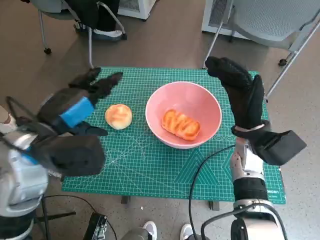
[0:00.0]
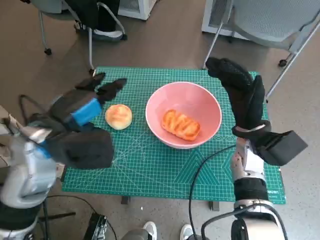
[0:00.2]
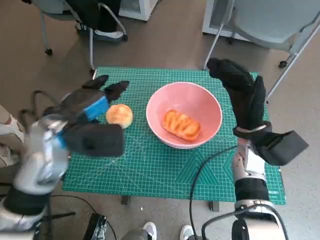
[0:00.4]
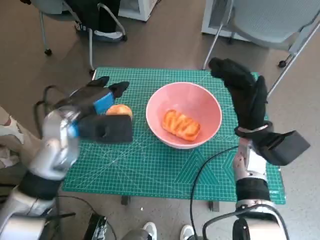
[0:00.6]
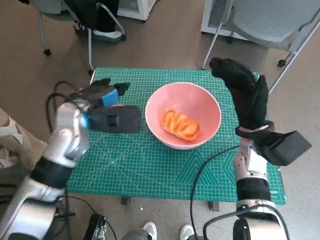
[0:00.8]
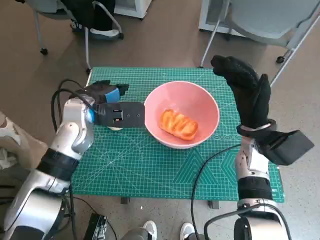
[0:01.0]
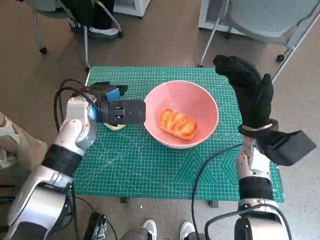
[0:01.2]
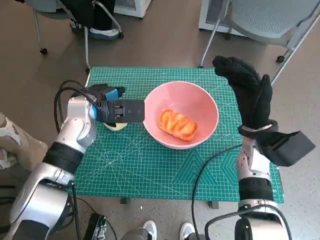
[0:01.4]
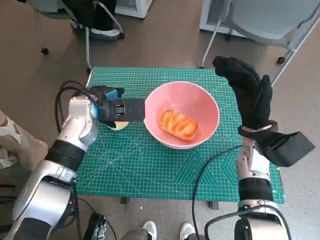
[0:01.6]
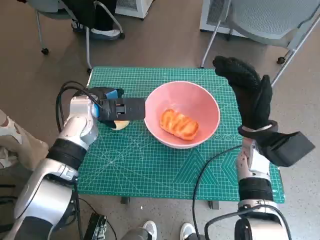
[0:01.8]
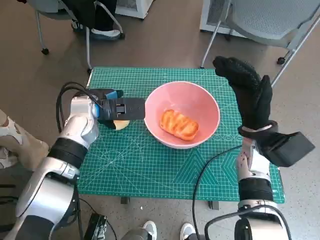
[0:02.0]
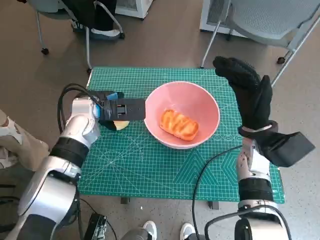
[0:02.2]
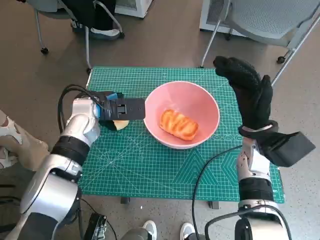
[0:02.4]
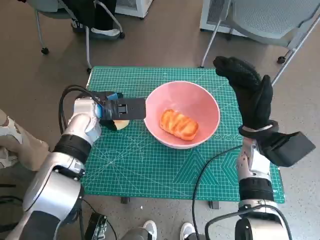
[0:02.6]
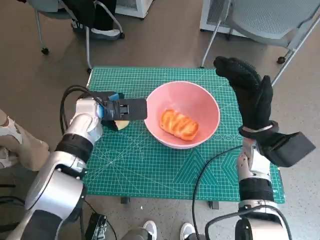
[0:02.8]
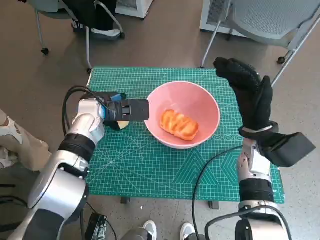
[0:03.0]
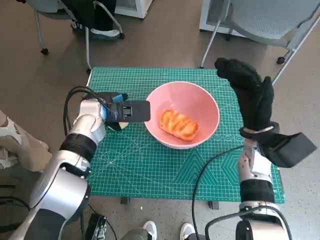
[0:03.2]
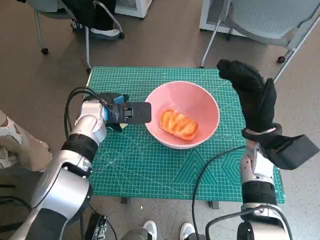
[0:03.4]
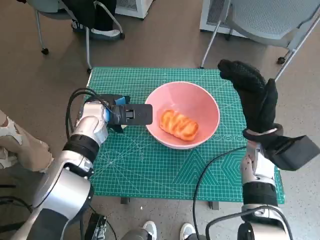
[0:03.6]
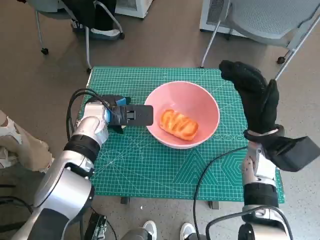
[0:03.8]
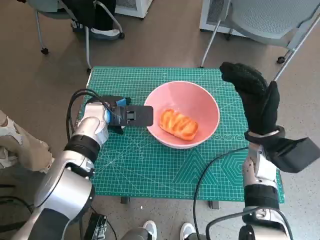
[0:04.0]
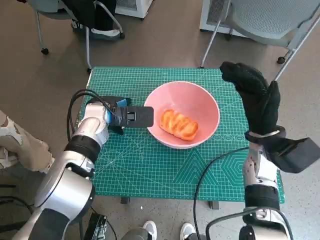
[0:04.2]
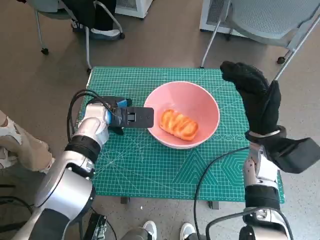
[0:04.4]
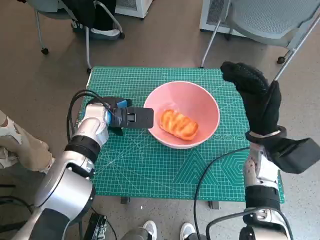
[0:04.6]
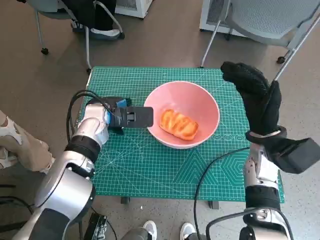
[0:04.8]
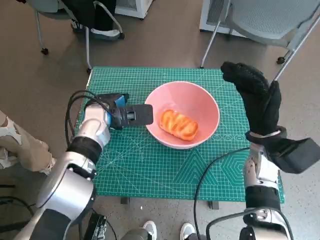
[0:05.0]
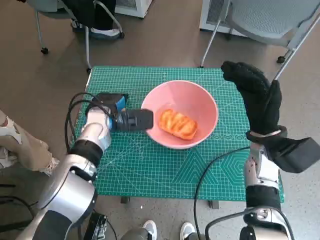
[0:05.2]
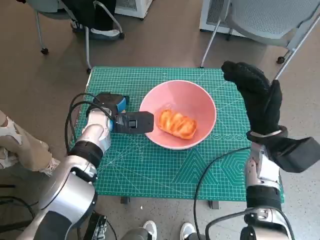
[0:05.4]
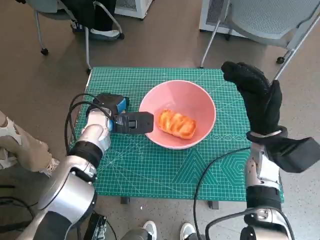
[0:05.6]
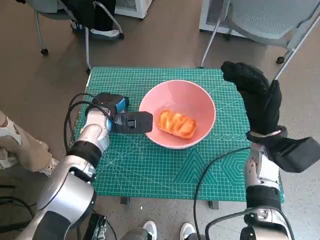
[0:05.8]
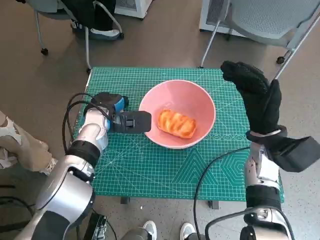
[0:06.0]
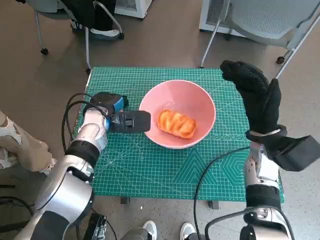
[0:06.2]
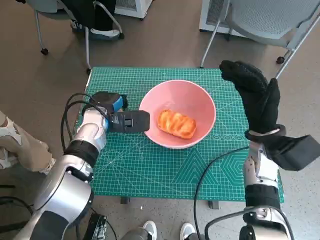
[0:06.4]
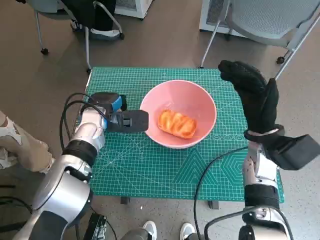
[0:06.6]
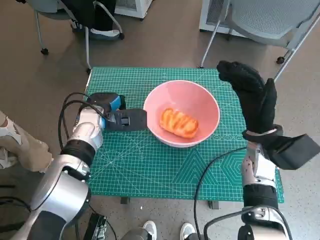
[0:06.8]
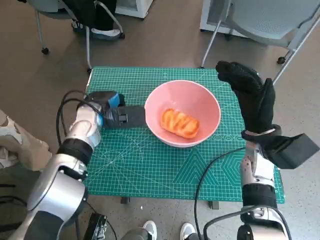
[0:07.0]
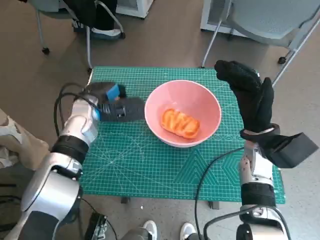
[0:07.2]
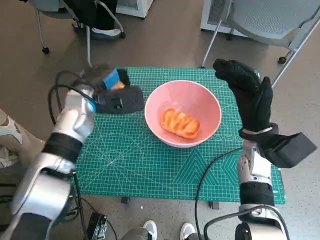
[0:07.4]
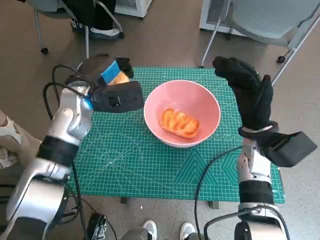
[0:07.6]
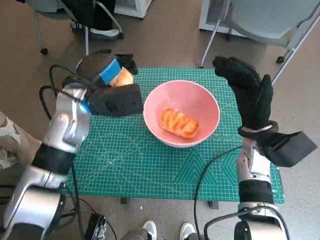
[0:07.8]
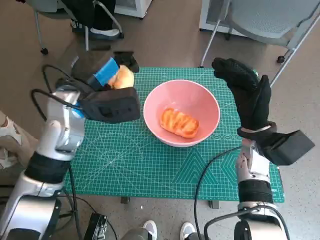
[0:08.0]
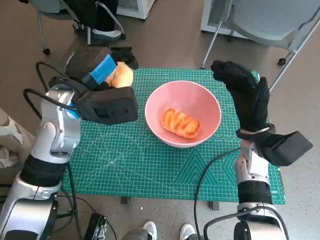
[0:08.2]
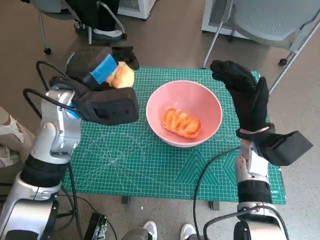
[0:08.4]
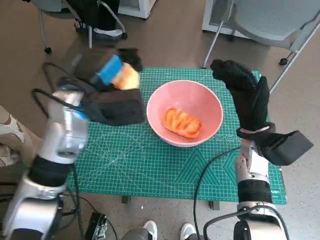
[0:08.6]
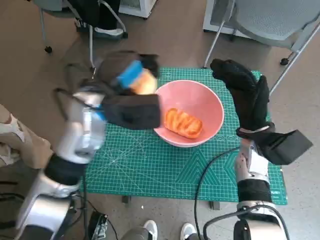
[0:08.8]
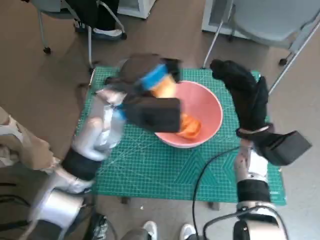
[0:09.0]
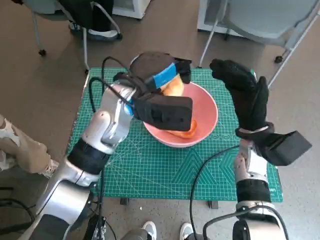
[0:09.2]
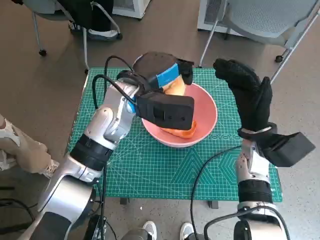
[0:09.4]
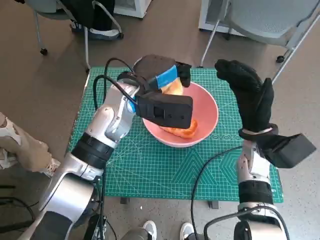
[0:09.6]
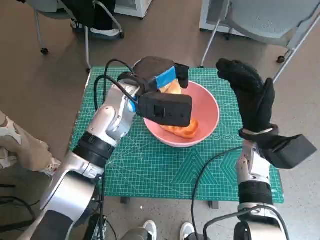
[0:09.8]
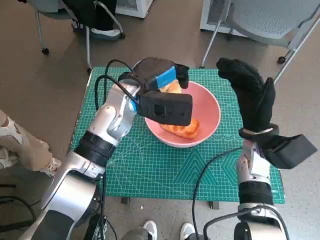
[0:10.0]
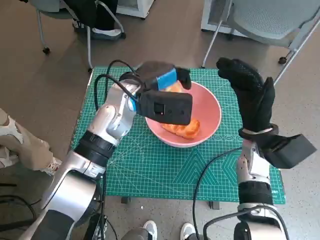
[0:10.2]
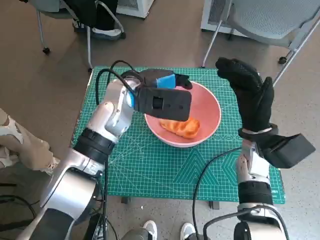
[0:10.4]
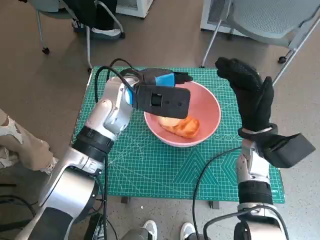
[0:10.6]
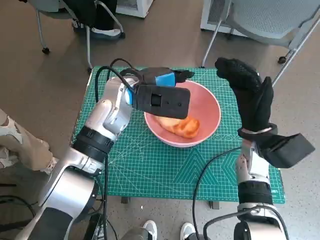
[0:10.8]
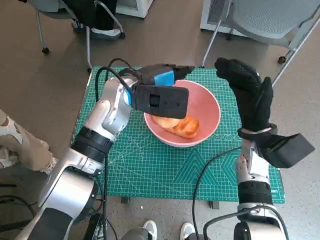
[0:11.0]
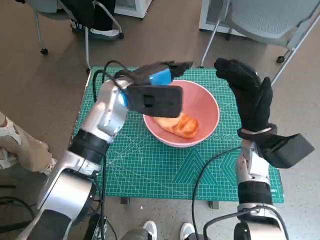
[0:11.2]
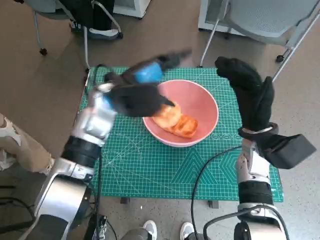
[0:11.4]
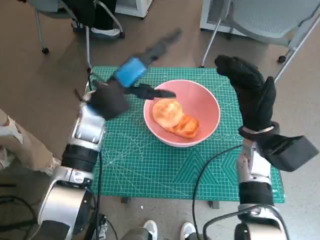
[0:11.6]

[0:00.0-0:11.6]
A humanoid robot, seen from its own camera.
Step, 0:00.0 to 0:05.0: Grasp the round bread with left hand.
Step, 0:05.2 to 0:10.6: Place the round bread in pink bowl with left hand.
0:00.0 to 0:01.4: The left hand heads forward and downward, covering about 15 cm.
0:01.4 to 0:05.8: There are only small adjustments of the hands.
0:07.2 to 0:08.8: The left hand moves upward and to the right, about 10 cm.
0:08.8 to 0:10.2: The left hand ends up about 5 cm from where it was.
0:10.2 to 0:11.6: The left hand travels to the left by roughly 5 cm.

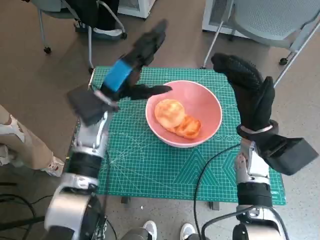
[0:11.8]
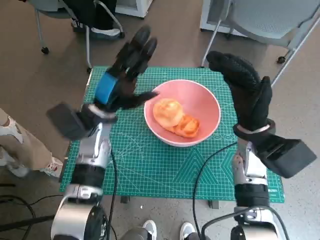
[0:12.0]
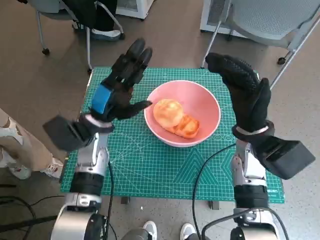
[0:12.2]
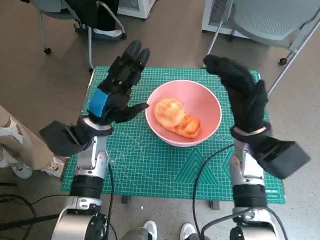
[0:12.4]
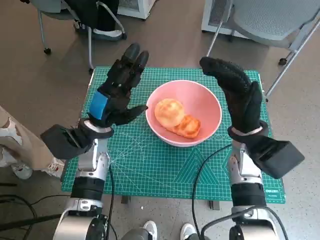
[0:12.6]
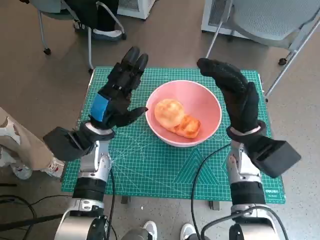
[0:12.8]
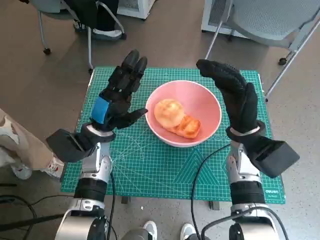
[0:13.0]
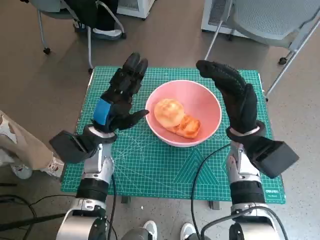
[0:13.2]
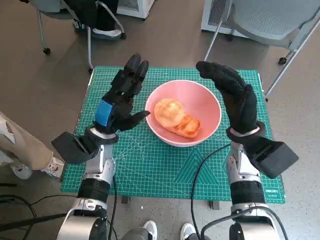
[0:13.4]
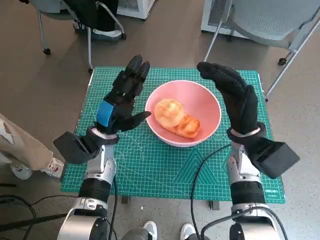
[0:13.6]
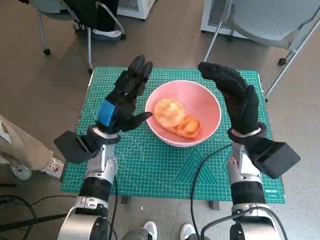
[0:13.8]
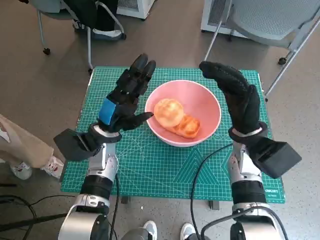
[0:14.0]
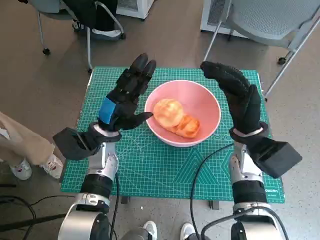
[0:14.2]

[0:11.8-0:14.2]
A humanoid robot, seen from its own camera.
0:11.8 to 0:13.0: The left hand travels downward by roughly 5 cm.
0:13.0 to 0:14.2: The two hands keep their place.

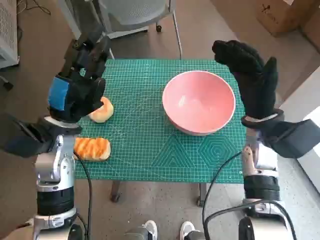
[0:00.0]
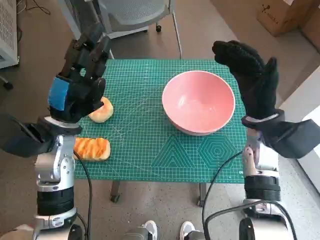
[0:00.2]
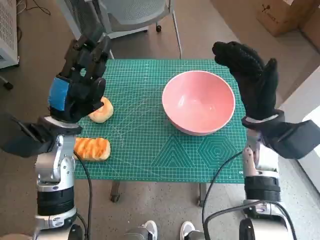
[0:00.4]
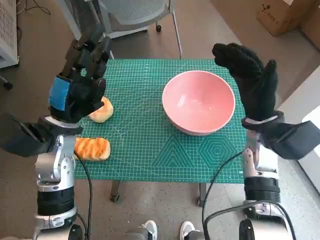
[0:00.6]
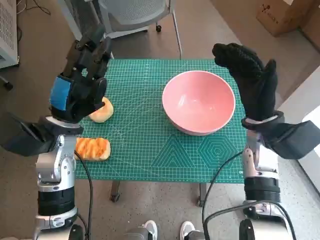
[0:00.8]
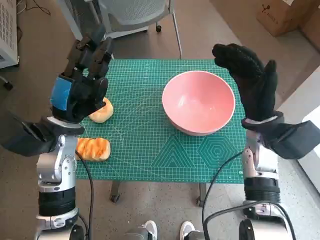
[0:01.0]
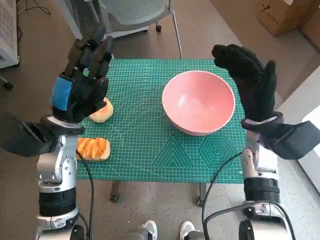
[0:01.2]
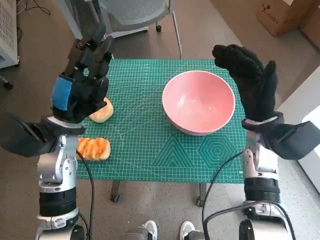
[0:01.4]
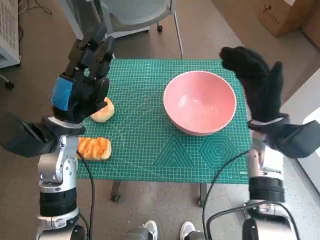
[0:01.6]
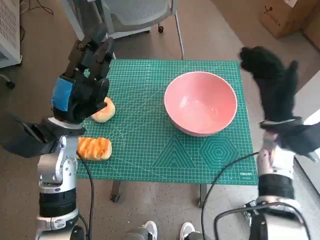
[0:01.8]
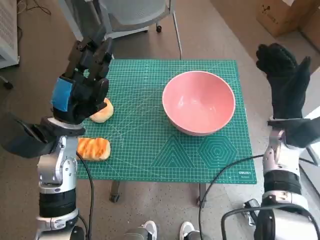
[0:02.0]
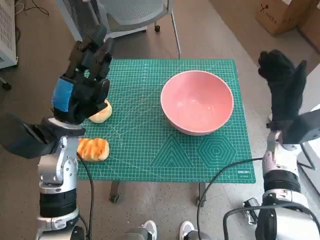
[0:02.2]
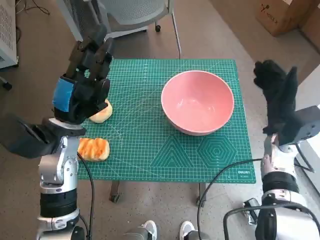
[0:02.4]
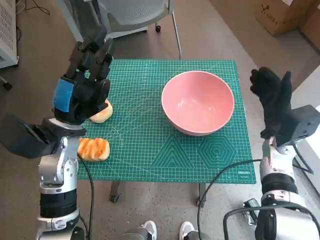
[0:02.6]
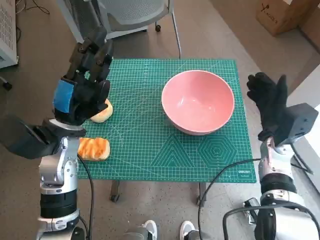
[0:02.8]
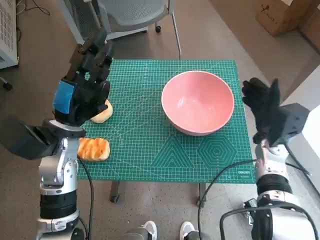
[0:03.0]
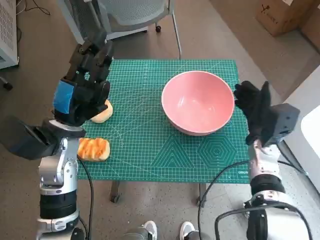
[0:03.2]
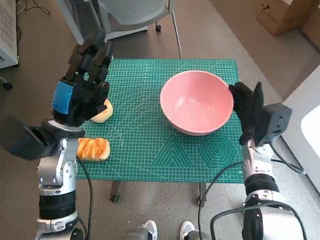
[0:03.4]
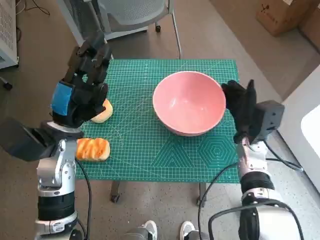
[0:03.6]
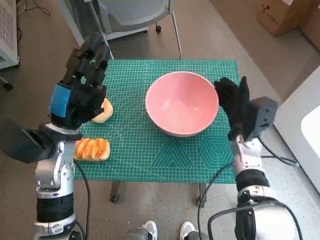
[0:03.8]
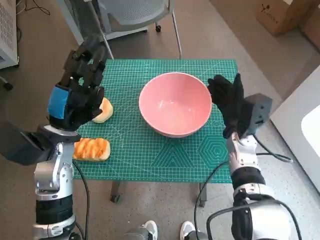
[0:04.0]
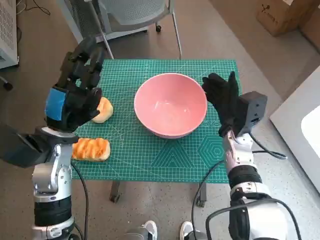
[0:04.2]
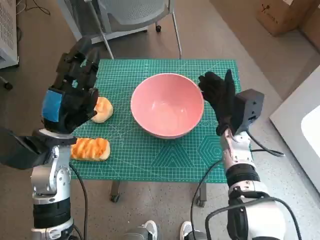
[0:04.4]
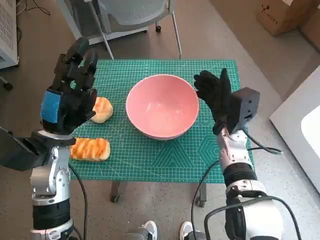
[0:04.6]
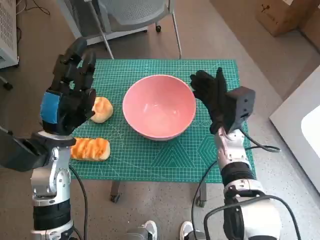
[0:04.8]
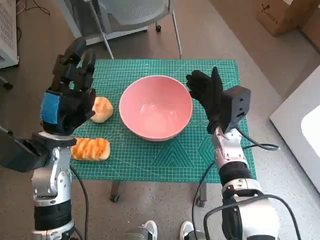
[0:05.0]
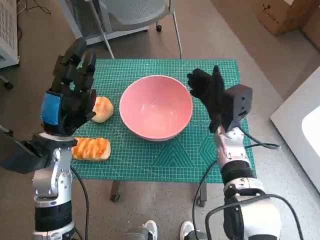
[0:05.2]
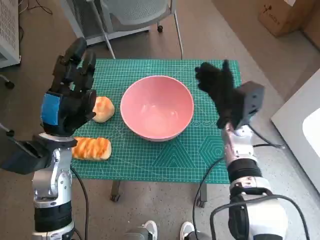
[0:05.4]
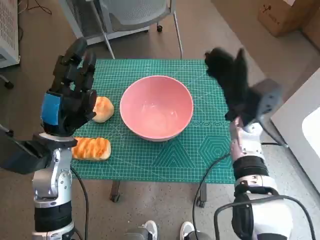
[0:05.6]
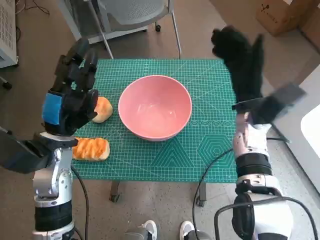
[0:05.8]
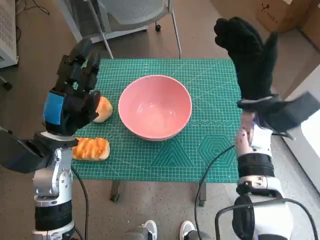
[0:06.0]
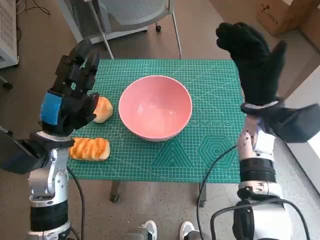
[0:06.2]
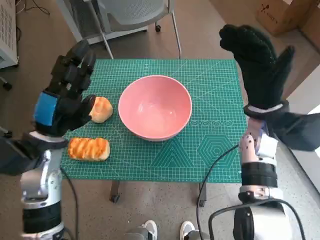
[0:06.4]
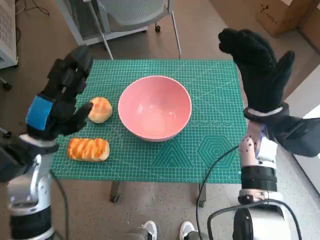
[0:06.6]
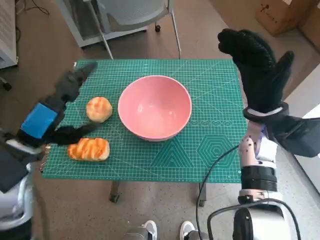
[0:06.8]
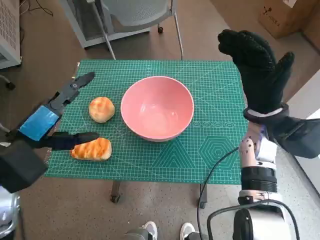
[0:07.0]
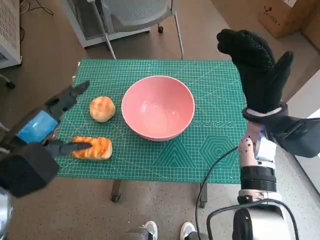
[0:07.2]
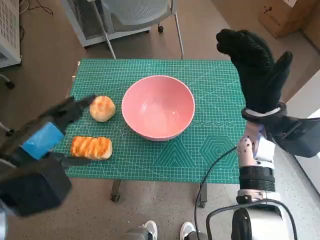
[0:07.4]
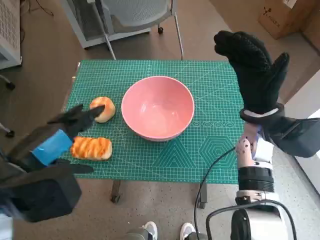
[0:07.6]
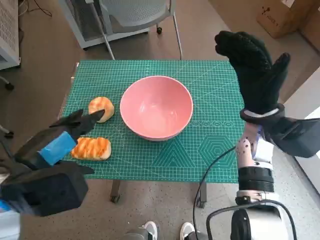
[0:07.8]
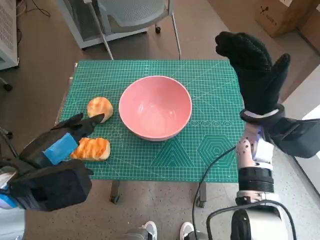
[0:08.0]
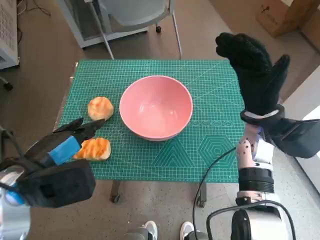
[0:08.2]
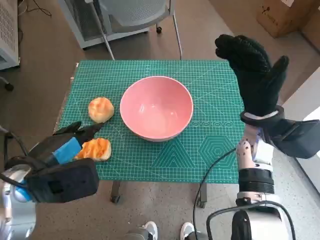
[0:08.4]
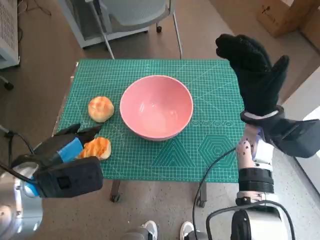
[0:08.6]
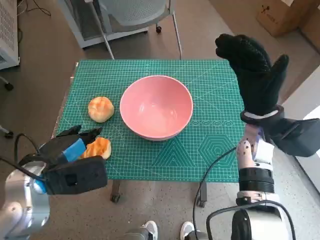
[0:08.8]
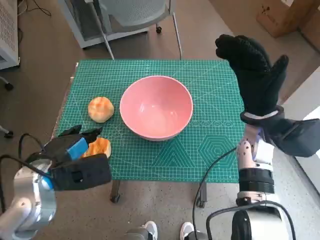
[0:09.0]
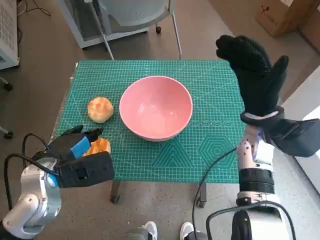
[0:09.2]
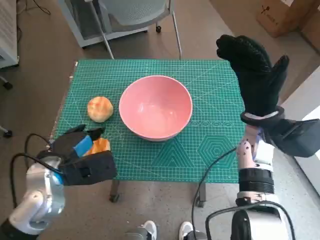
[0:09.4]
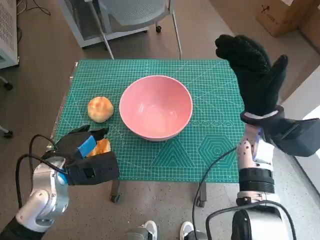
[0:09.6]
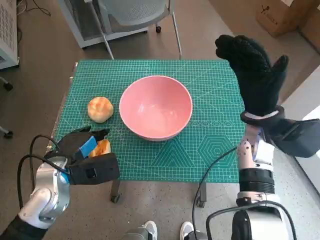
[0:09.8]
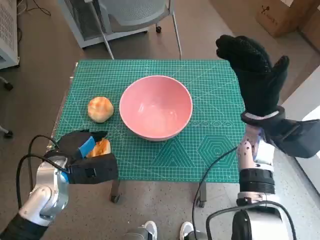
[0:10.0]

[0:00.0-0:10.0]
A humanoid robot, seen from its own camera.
Step, 0:00.0 to 0:05.2: Move the pink bowl to the center of table with right hand.
0:01.4 to 0:02.8: The right hand goes some 10 cm downward and to the right.
0:02.8 to 0:04.2: The right hand is displaced to the left by approximately 10 cm.
0:04.2 to 0:05.8: The right hand goes roughly 5 cm upward.
0:05.8 to 0:07.2: The left hand is displaced upward and backward by roughly 10 cm.
0:08.6 to 0:10.0: The left hand shifts about 10 cm downward.
